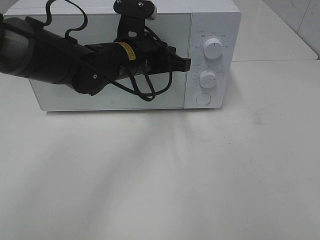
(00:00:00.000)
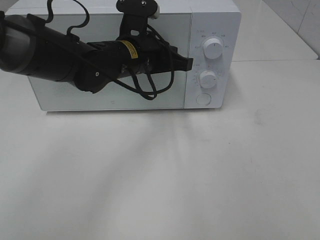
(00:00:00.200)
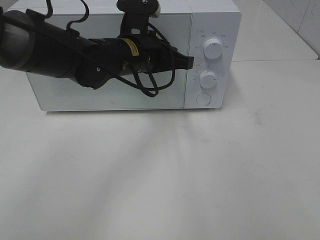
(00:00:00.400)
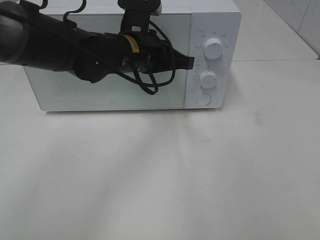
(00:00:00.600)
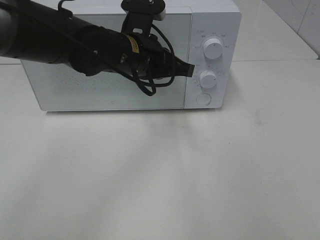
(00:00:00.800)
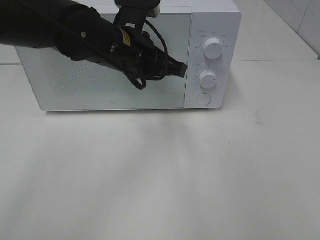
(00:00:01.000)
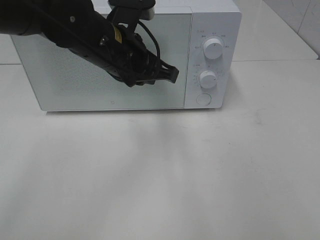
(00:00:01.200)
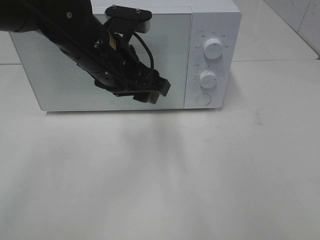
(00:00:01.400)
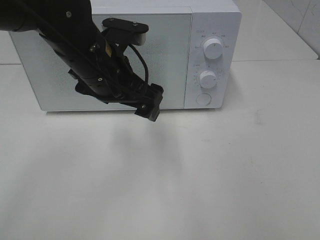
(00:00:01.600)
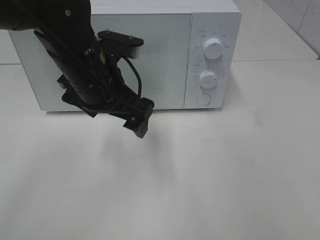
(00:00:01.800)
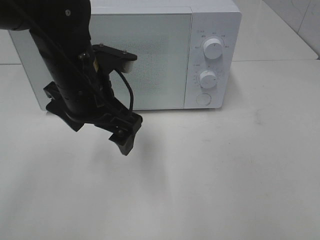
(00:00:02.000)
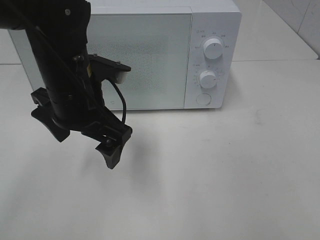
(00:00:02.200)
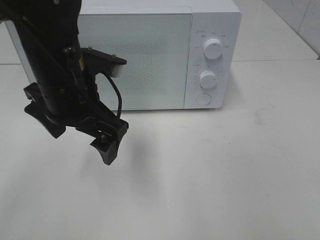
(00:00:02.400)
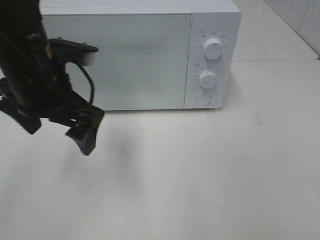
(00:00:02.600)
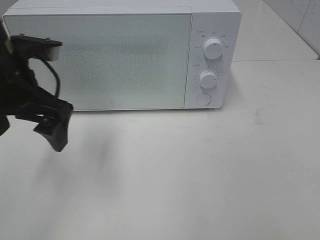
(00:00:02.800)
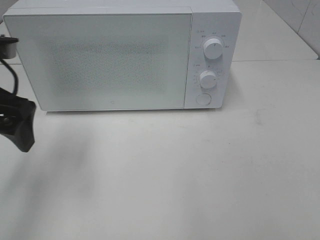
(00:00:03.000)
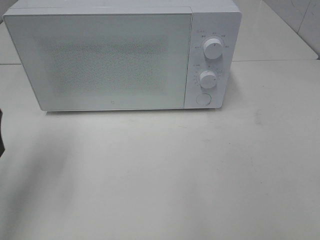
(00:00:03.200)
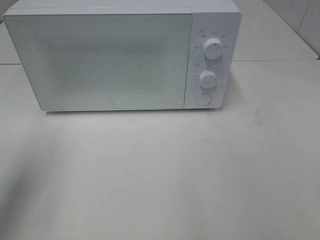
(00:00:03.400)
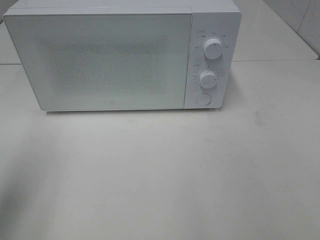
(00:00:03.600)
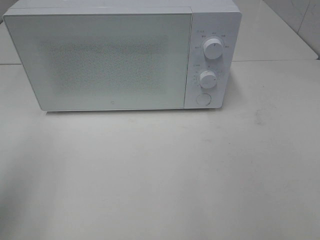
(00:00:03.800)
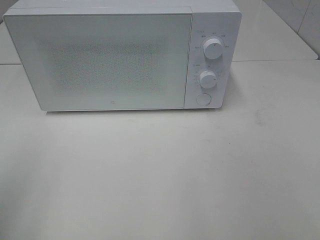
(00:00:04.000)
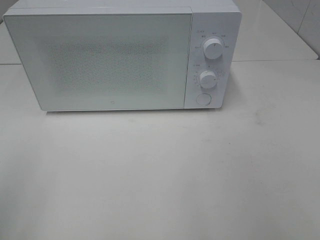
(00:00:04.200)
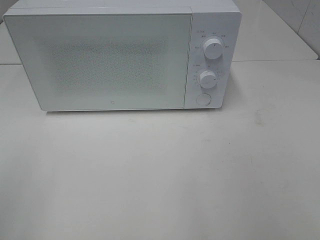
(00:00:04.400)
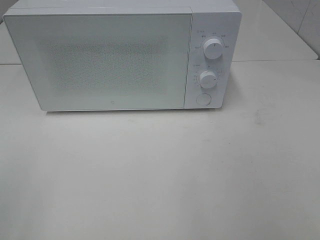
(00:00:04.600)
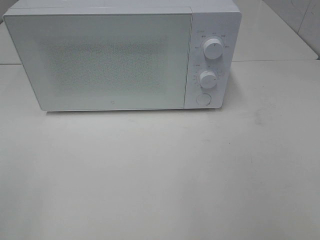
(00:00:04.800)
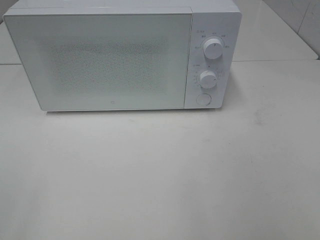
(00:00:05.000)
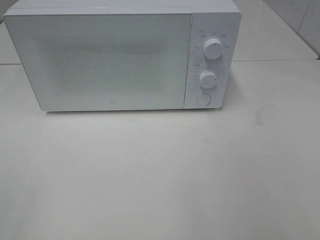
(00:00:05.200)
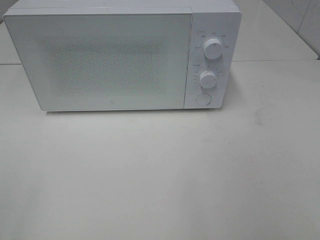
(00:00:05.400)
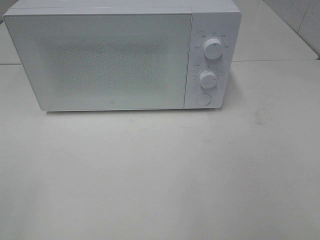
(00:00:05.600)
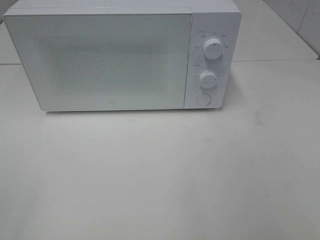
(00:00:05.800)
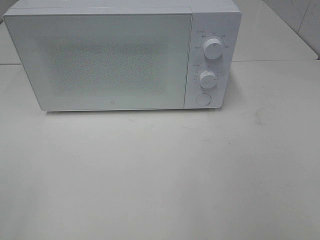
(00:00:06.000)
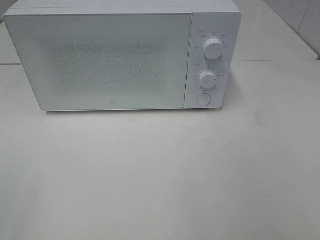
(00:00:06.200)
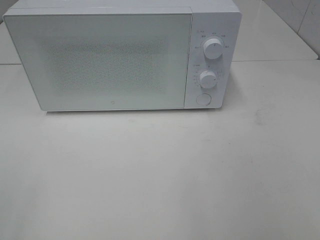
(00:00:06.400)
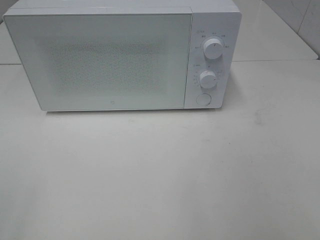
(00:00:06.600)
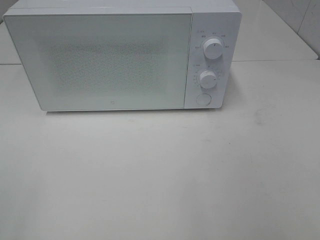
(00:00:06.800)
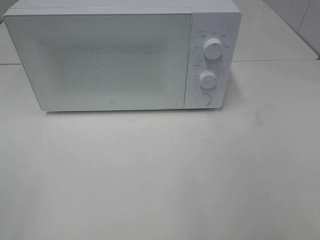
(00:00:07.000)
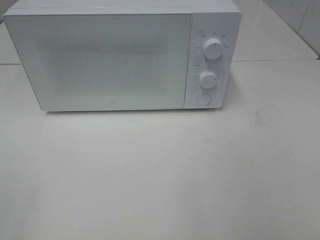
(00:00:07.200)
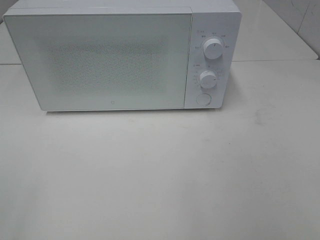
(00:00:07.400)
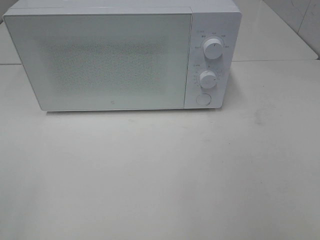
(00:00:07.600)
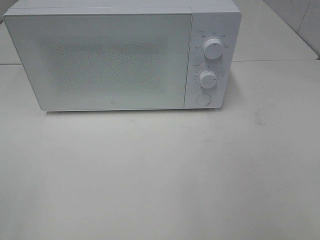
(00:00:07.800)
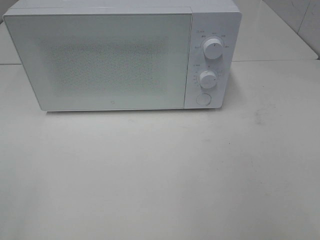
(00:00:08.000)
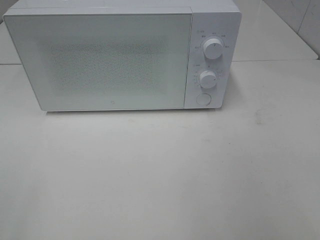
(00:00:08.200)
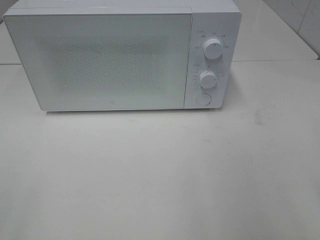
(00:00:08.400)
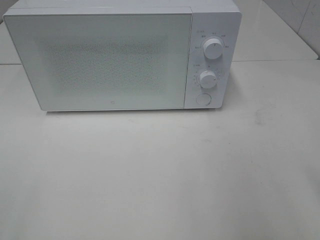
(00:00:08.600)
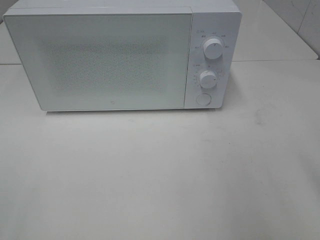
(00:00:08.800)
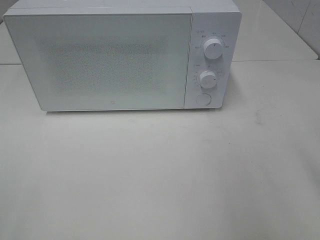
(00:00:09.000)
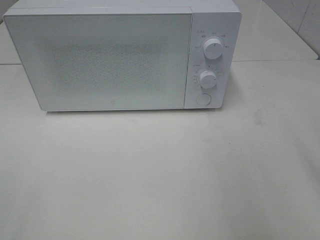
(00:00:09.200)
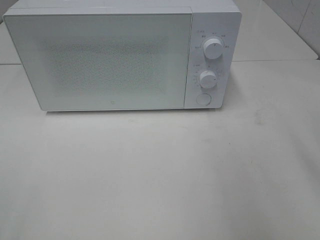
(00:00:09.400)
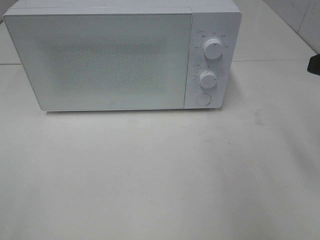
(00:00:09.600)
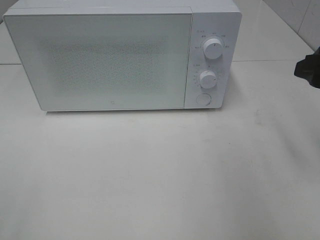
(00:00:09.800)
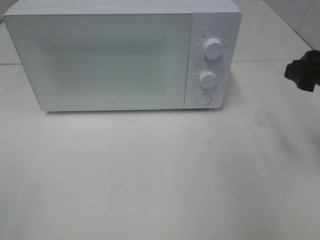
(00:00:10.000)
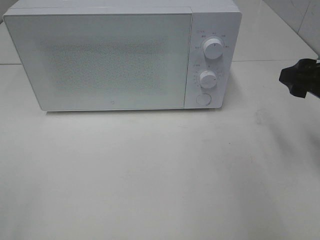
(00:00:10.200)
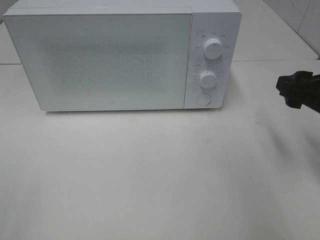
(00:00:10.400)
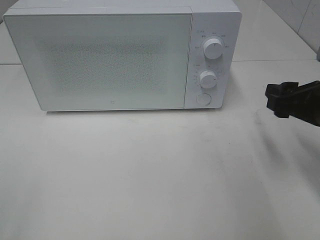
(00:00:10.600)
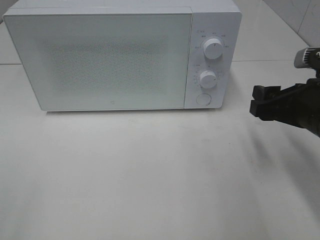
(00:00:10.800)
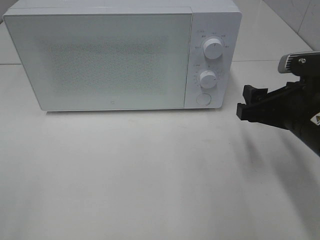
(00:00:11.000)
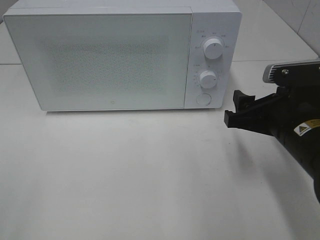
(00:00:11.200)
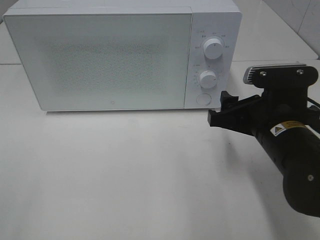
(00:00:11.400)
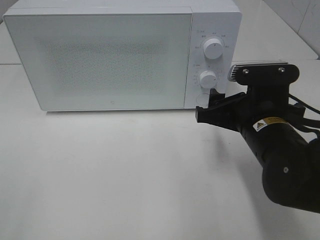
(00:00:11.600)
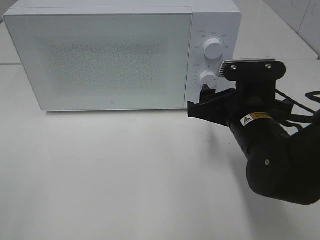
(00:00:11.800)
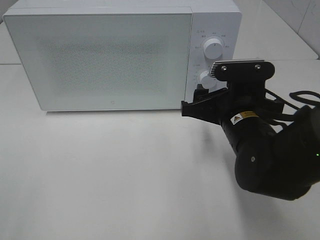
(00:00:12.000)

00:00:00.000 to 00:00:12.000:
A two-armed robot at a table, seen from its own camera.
Task of the whole recording: Heat the burger.
00:00:00.000 to 00:00:01.600: The left gripper heads backward, covering some 5 cm, and opens up.
00:00:01.600 to 00:00:03.000: The left gripper shifts some 15 cm to the left.
00:00:03.000 to 00:00:04.400: The left gripper shifts about 20 cm backward and to the left.
00:00:06.000 to 00:00:07.600: Both grippers stay put.
00:00:09.000 to 00:00:10.400: The right gripper heads downward and forward, covering about 10 cm.
00:00:10.400 to 00:00:12.000: The right gripper shifts roughly 15 cm to the left and downward.

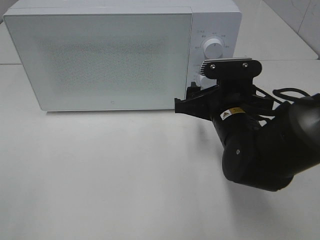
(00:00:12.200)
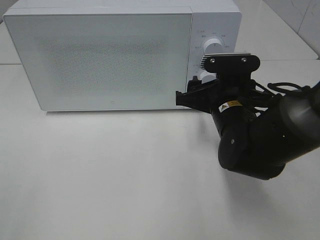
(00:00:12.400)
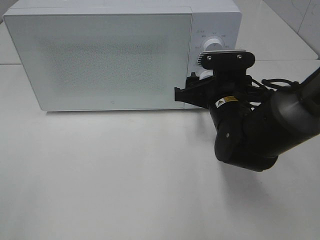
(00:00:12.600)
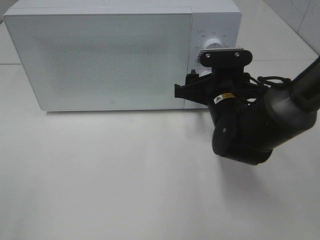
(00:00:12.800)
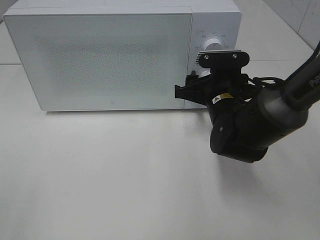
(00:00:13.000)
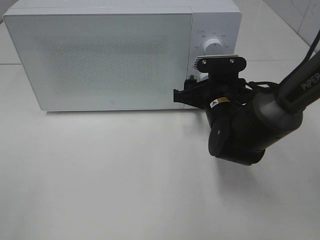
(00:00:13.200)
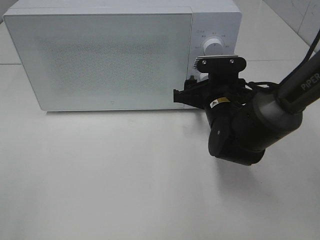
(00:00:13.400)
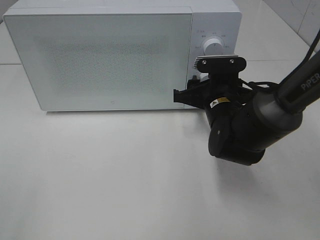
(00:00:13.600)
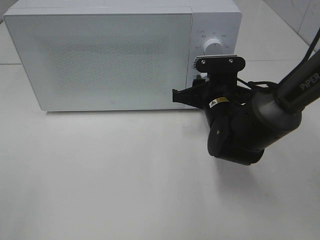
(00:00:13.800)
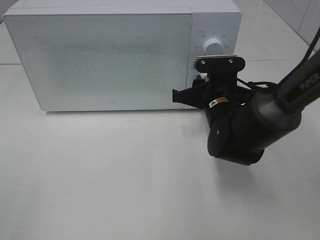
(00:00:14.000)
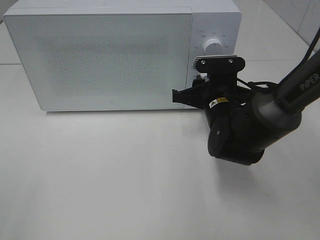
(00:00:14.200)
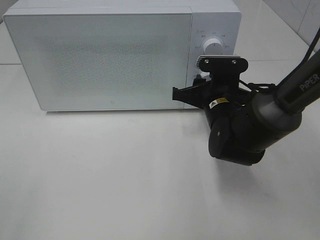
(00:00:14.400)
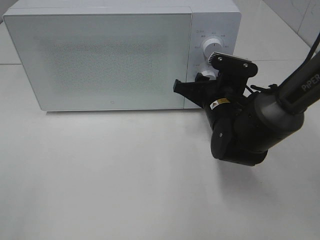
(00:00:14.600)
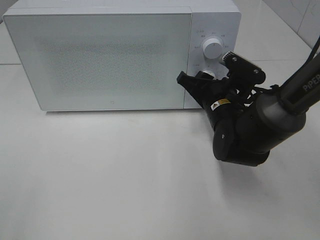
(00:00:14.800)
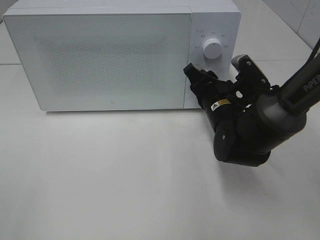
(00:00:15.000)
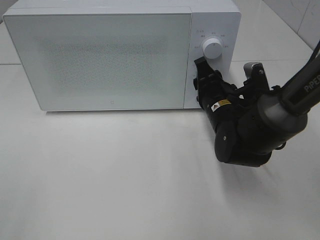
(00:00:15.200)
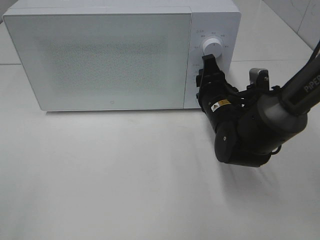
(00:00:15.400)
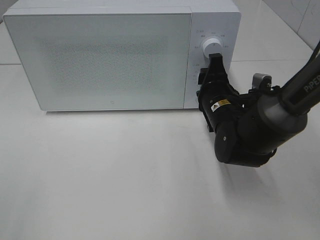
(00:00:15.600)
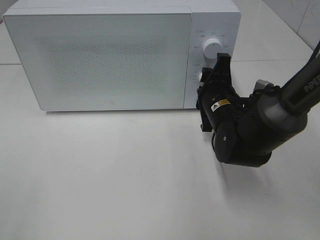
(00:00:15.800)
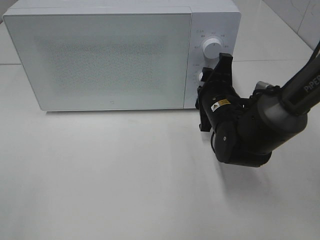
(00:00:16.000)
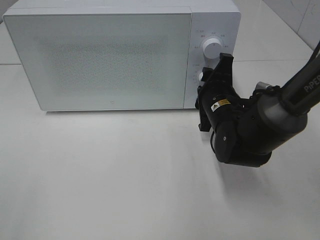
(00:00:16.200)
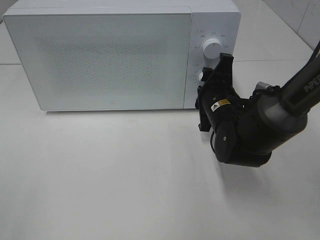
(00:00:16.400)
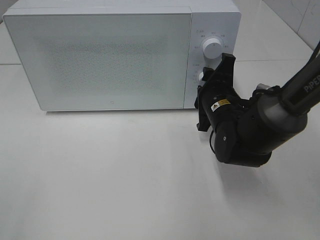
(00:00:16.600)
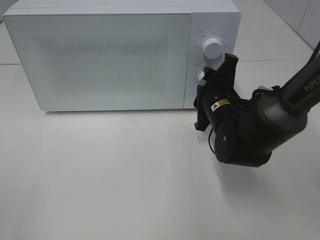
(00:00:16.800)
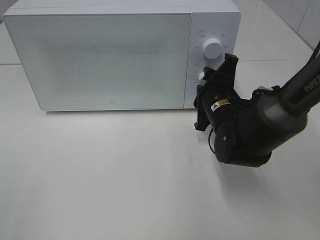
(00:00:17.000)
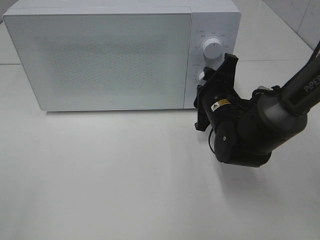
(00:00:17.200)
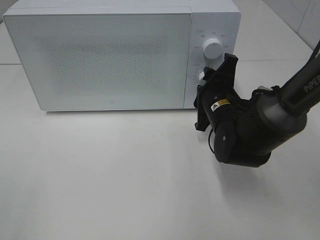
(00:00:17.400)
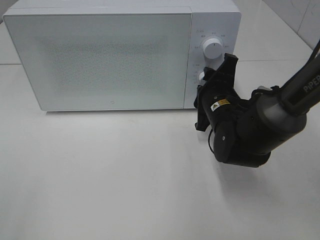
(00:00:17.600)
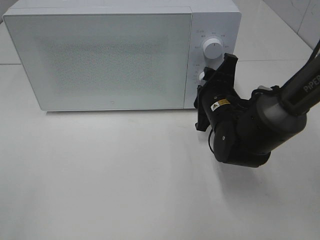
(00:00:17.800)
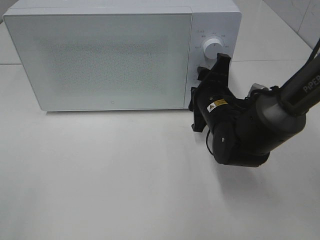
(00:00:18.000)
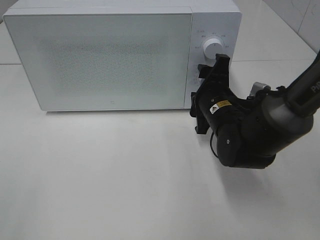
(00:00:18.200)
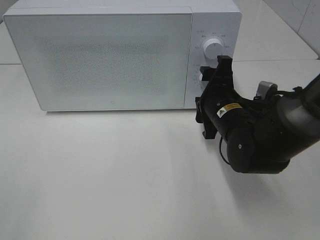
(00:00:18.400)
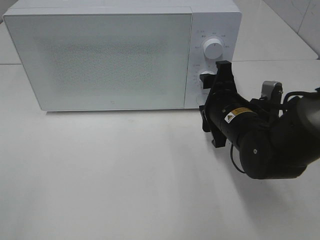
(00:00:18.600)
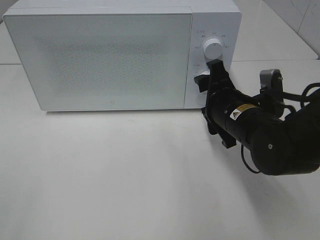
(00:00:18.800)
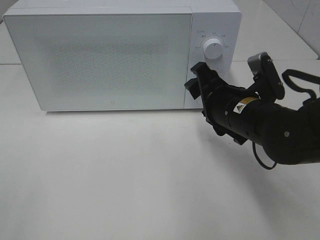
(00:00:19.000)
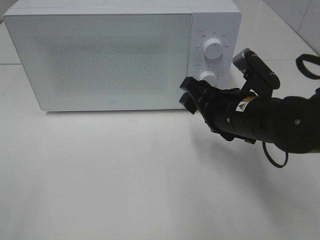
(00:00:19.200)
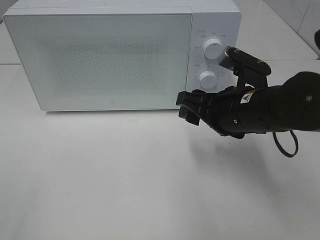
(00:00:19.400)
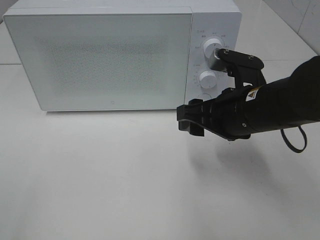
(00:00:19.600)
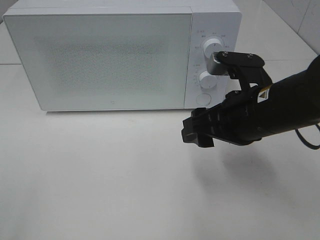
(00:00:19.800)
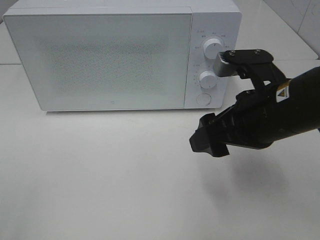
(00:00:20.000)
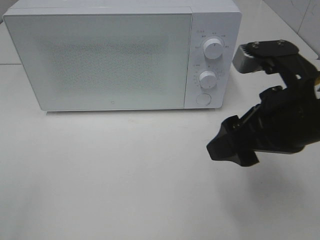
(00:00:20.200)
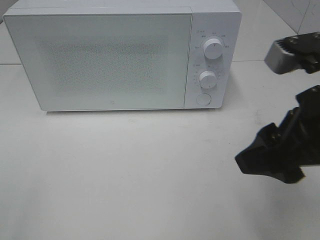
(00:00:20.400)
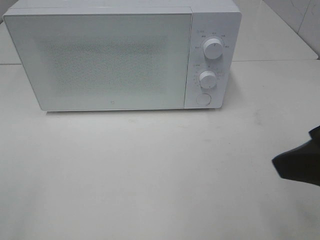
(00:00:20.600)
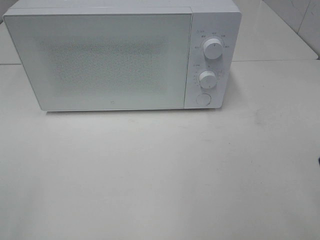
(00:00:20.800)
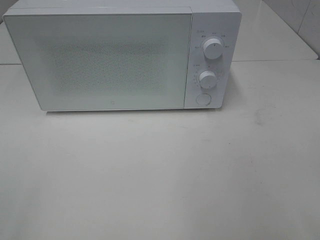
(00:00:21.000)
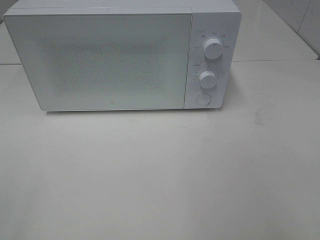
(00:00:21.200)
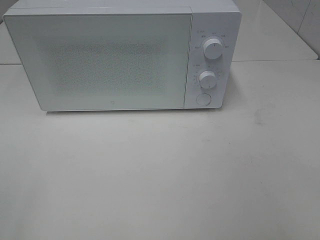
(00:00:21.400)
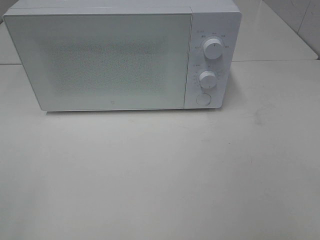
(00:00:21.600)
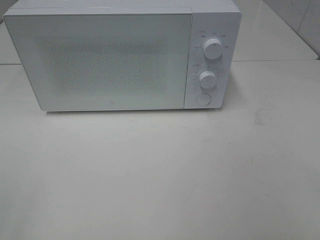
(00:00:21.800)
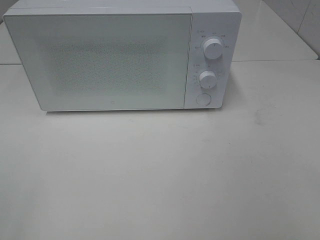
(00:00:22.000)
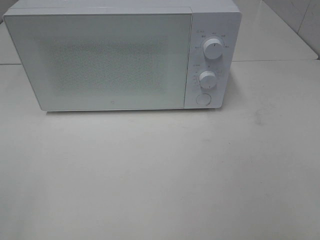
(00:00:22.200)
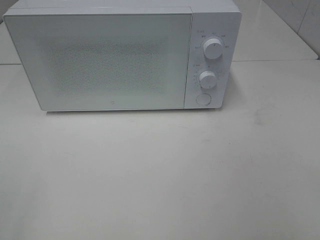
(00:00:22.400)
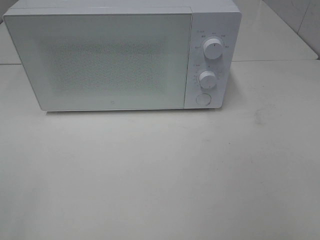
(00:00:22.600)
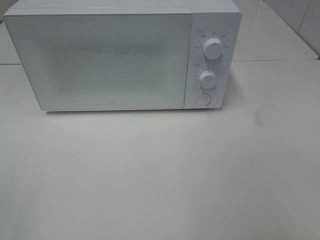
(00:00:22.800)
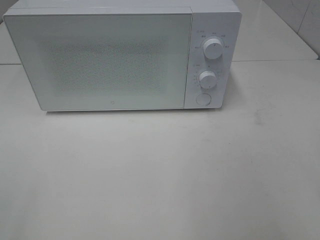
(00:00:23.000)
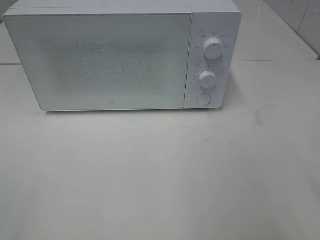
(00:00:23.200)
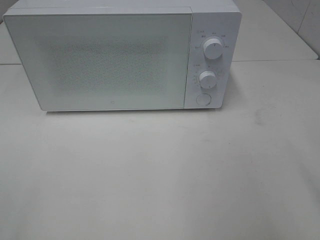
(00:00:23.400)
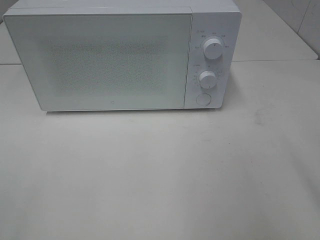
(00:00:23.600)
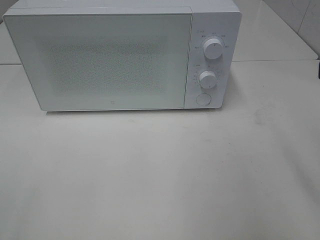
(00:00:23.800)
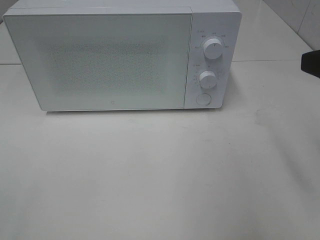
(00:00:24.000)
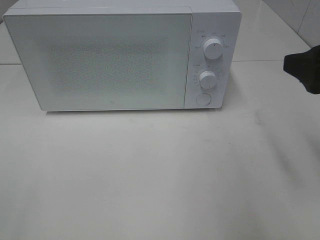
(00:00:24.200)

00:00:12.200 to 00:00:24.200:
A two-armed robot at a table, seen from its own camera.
Task of the whole recording: Heat the burger.
Step, 00:00:12.200 to 00:00:18.000: Right hand: twist timer button.
00:00:12.200 to 00:00:13.800: The right gripper travels forward by roughly 5 cm, and closes up.
00:00:16.600 to 00:00:18.200: Both grippers stay put.
00:00:18.200 to 00:00:19.800: The right gripper is displaced backward and upward by approximately 10 cm.
00:00:19.800 to 00:00:21.200: The right gripper goes approximately 25 cm backward, to the right and upward.
00:00:22.600 to 00:00:24.200: The right gripper is displaced forward by roughly 20 cm.
